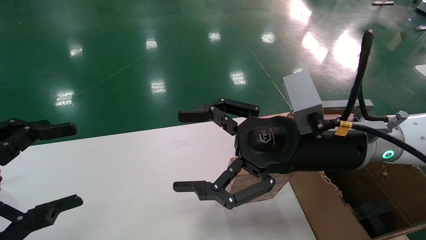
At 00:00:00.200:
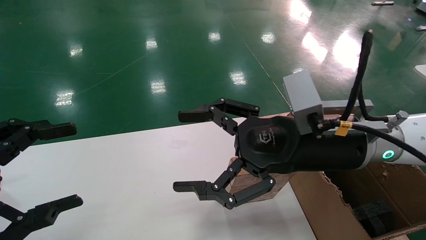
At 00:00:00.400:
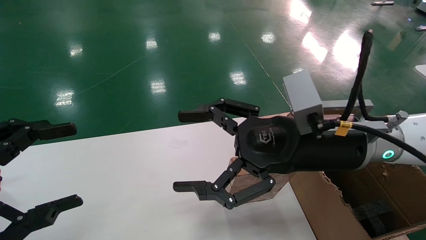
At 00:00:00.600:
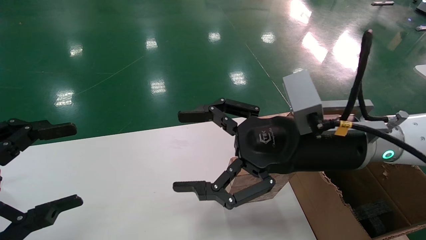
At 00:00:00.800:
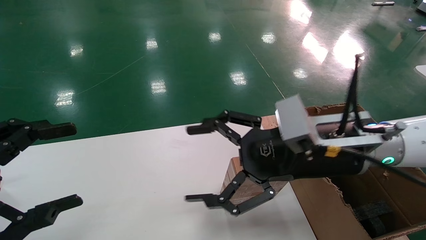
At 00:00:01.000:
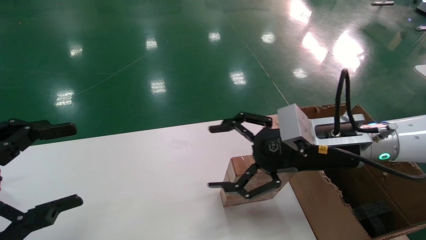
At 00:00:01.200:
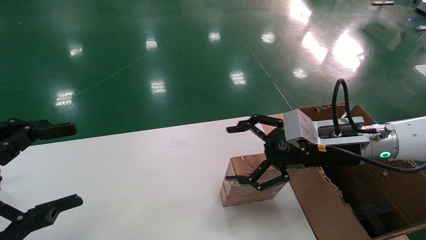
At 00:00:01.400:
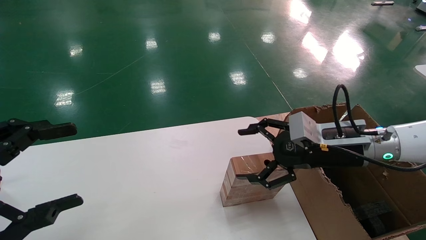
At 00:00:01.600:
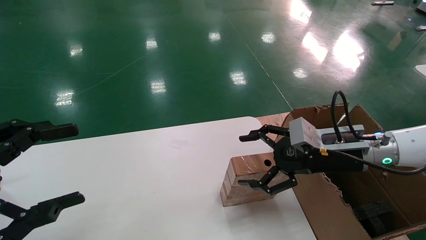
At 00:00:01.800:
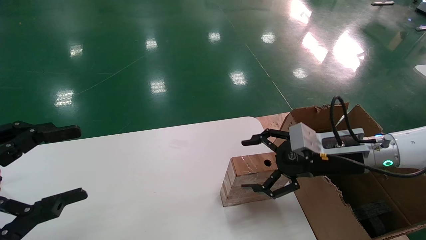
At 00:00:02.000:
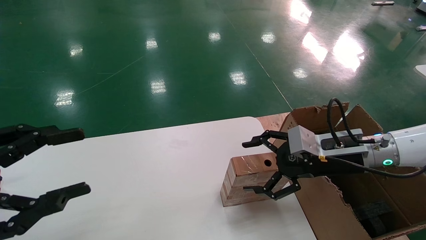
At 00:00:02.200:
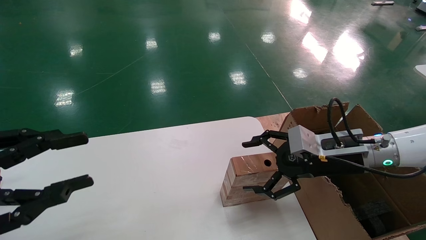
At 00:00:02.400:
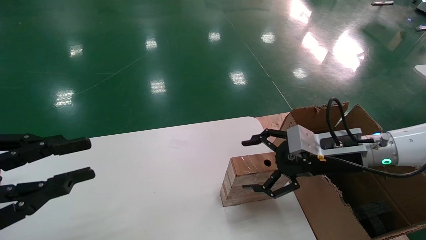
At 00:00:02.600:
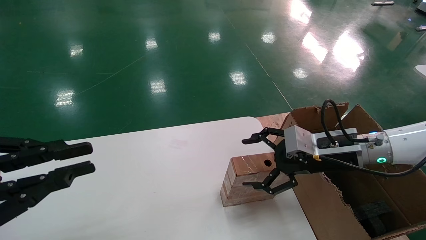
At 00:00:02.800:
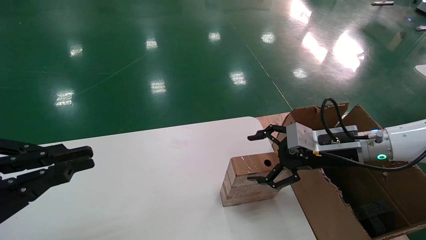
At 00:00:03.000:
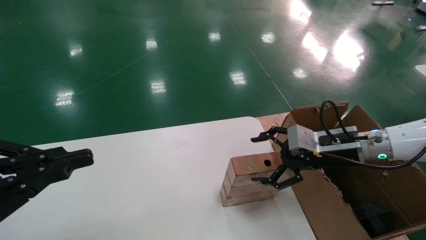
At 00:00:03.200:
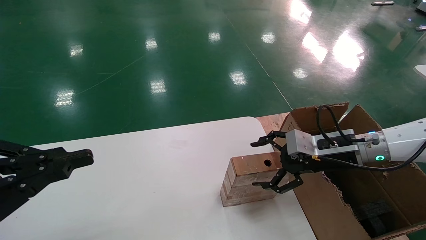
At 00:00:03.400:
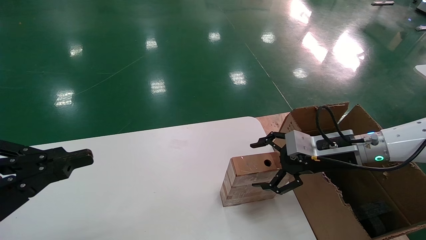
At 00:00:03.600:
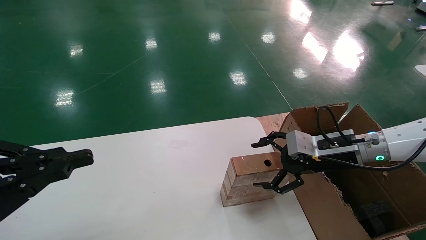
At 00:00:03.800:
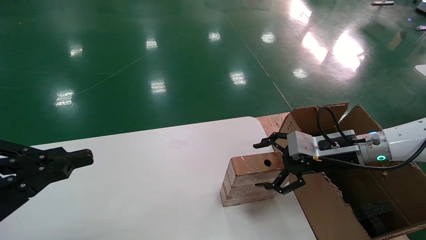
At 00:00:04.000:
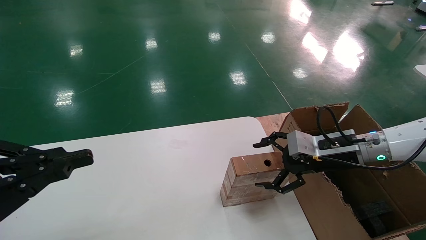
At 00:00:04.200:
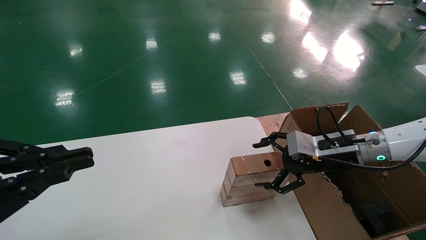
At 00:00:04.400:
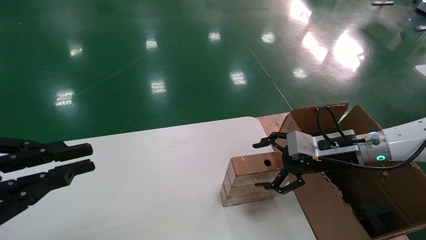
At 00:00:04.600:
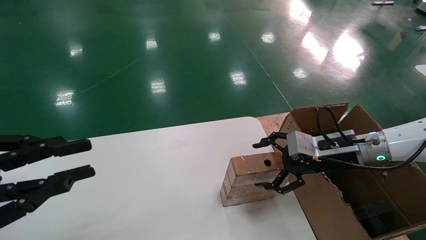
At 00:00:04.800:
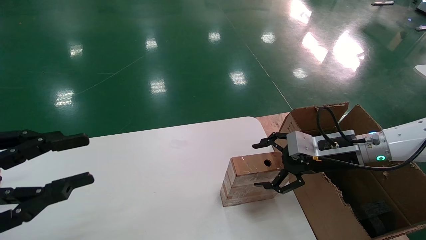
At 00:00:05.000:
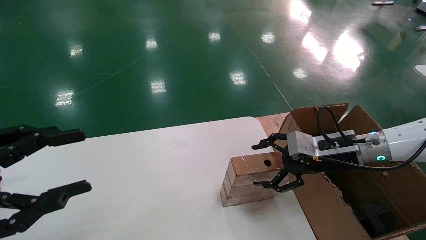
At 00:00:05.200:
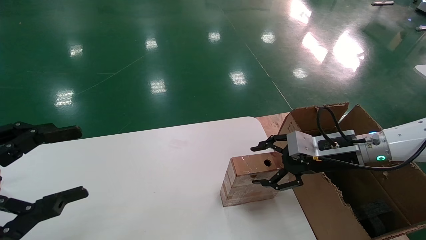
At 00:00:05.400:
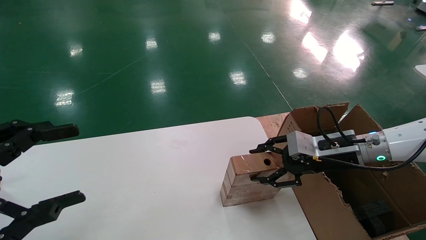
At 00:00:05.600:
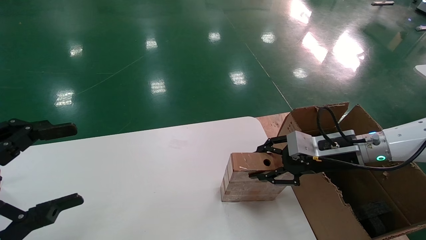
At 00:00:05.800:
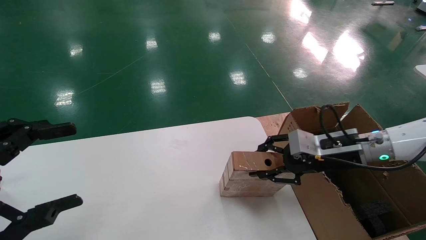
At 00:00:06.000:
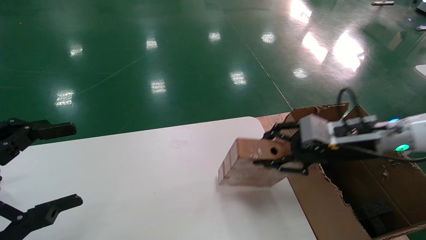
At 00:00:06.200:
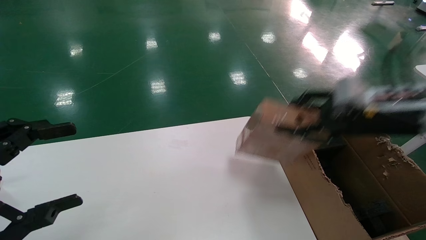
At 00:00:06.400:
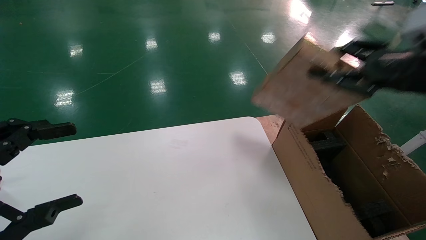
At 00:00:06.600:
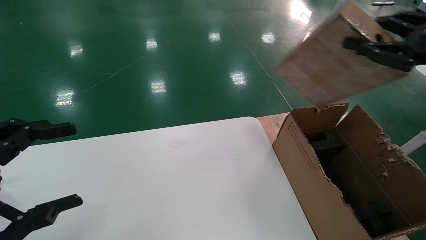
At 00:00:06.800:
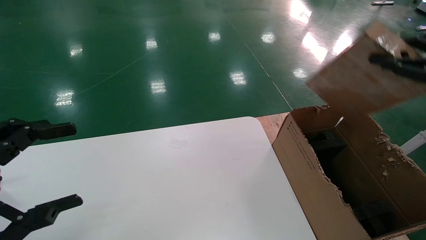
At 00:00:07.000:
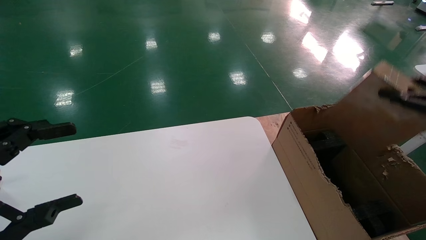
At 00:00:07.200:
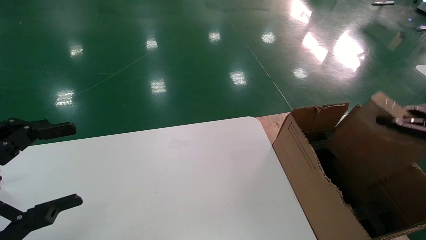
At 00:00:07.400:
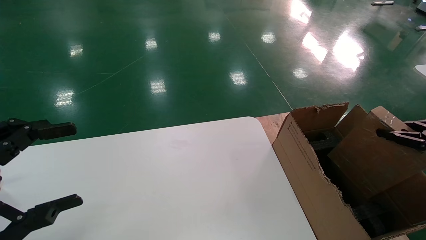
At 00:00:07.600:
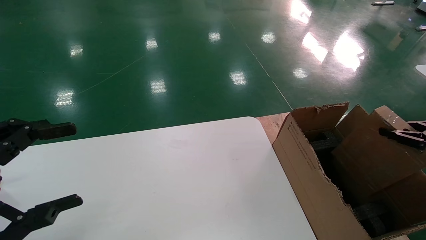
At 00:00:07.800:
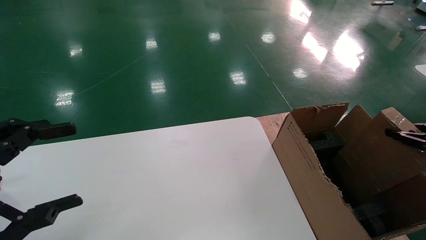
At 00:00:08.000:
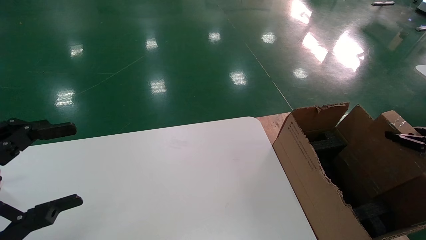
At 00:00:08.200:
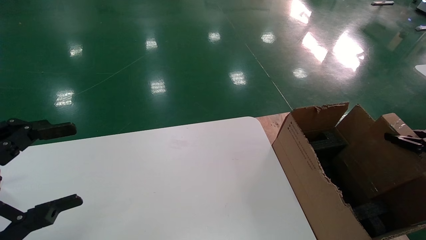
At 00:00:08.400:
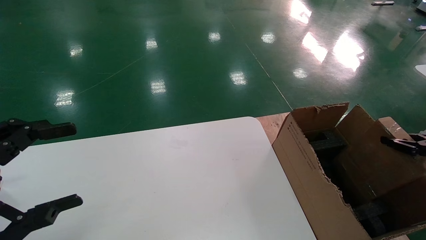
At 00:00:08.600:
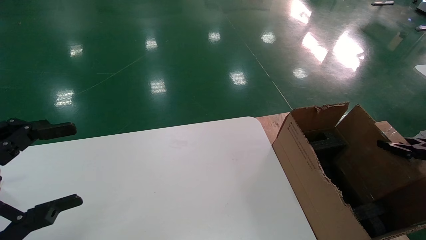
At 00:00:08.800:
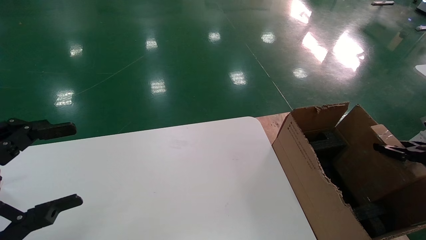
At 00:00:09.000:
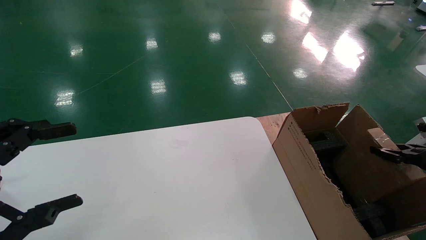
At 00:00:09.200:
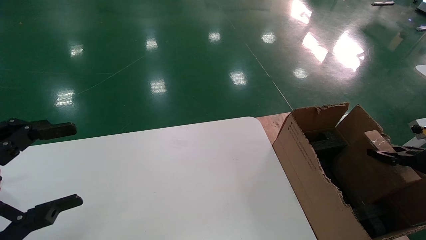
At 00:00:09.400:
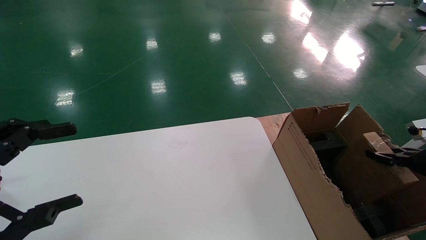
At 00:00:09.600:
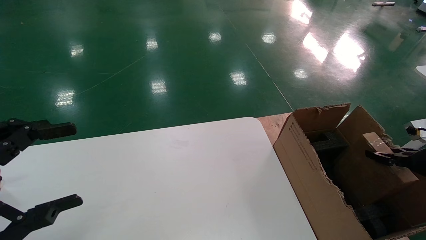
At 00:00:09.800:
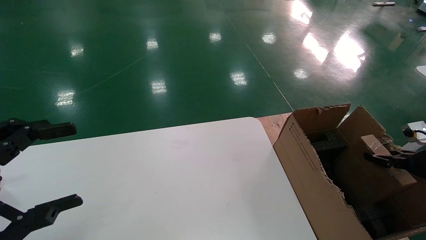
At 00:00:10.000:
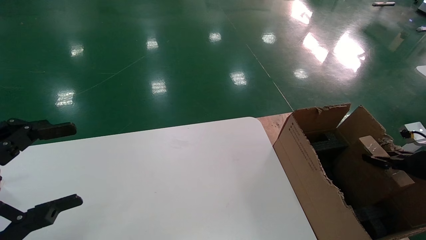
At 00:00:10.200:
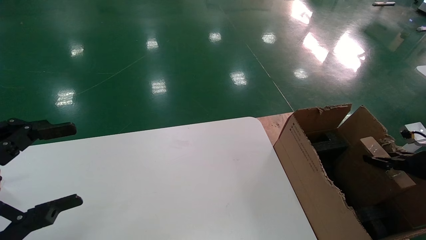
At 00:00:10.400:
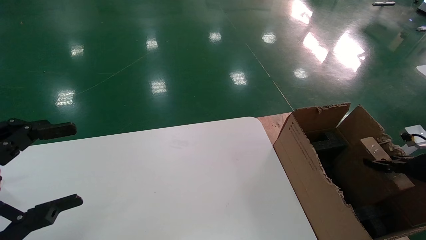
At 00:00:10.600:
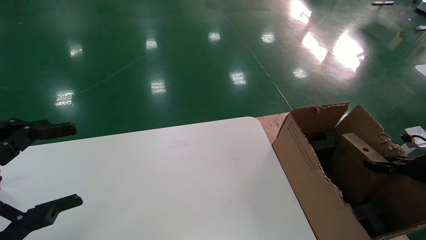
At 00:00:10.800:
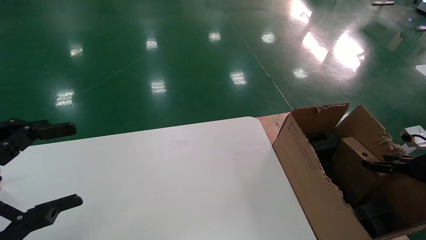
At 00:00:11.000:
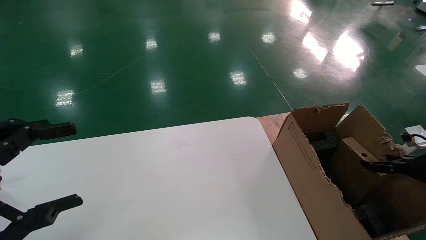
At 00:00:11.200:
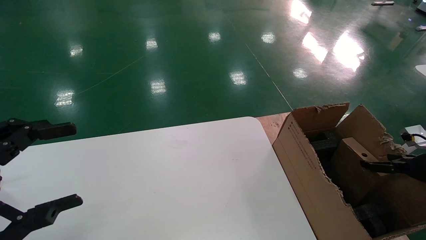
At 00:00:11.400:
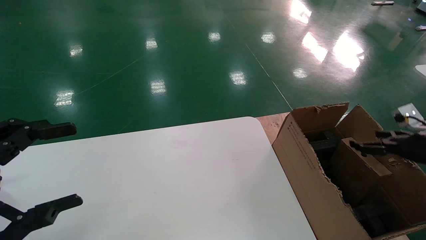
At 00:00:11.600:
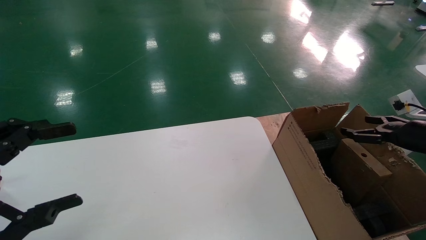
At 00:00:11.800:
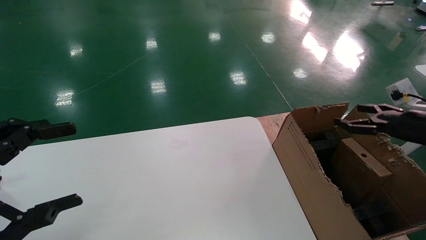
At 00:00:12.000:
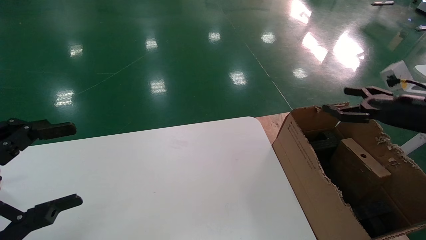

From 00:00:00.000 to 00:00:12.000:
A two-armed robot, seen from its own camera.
Task of the whole recording: put the box on the table into the big box.
Step, from 00:00:01.000 to 00:00:05.600: Pick up the mouse and the power cord paper box.
Step, from 00:00:05.800 to 00:00:10.800: Place the mouse and the power cord paper box into the container.
From 00:00:00.000 to 00:00:01.600: The right gripper is displaced to the right, downward and forward by approximately 15 cm.
From 00:00:01.600 to 00:00:03.000: The left gripper closes its fingers.
From 00:00:03.000 to 00:00:04.400: The two grippers keep their place.
From 00:00:04.400 to 00:00:06.000: The right gripper heads upward, covering some 5 cm, and closes. The left gripper opens.
From 00:00:06.000 to 00:00:07.600: The right gripper moves to the right and backward, about 25 cm.
From 00:00:07.600 to 00:00:09.000: The right gripper goes some 5 cm downward.
From 00:00:09.000 to 00:00:10.400: The grippers move only a little.
From 00:00:10.400 to 00:00:12.000: The right gripper is displaced upward and to the left by approximately 15 cm, and opens its fingers.

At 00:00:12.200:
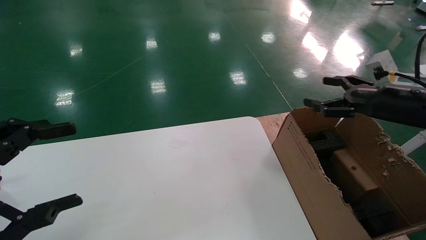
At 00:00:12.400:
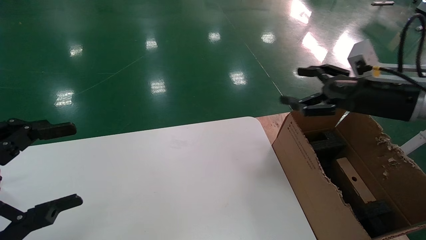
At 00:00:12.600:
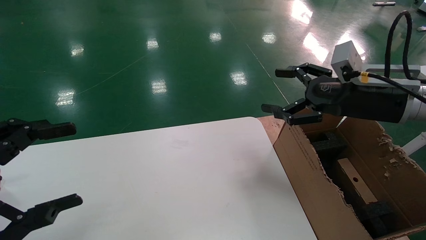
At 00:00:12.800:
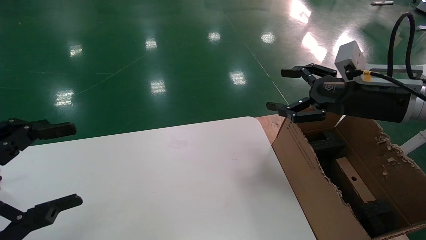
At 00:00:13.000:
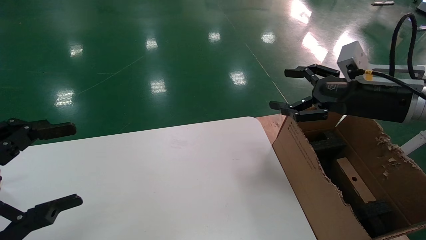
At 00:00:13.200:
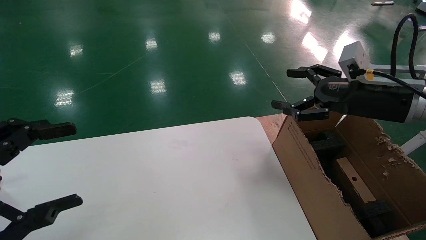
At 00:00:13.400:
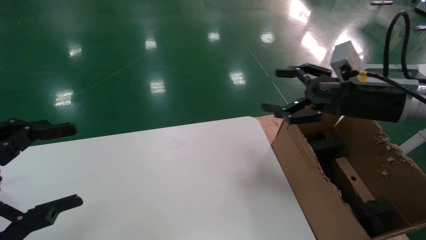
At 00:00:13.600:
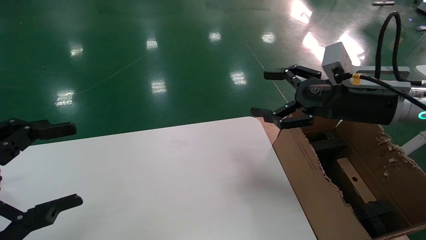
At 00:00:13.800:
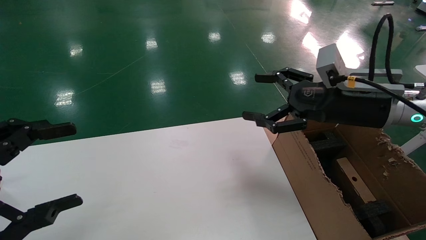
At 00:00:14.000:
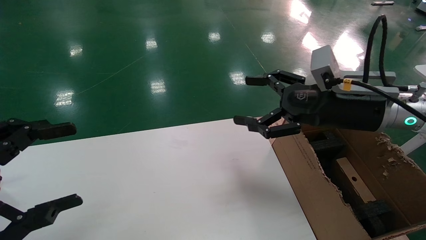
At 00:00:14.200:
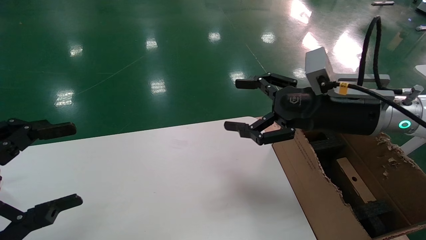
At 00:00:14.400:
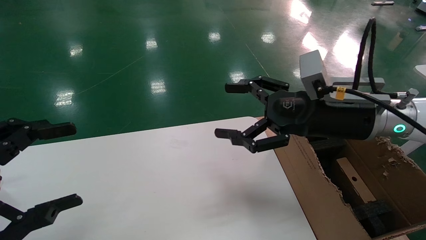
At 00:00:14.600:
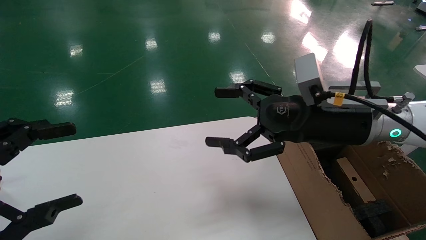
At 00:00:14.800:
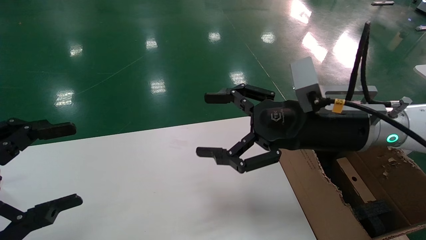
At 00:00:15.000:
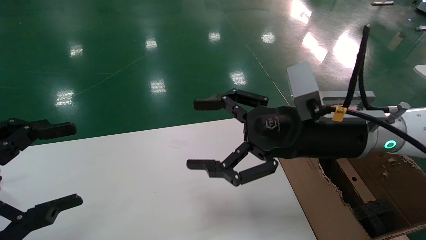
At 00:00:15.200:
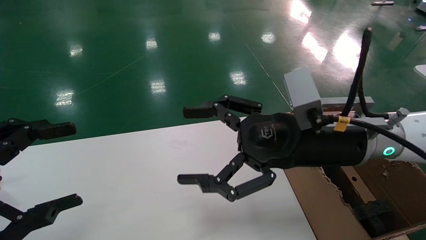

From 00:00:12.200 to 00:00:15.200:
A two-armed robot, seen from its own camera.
Task of the whole recording: put the box on the table into the big box.
From 00:00:12.200 to 00:00:13.800: The right gripper heads to the left, covering approximately 15 cm.
From 00:00:13.800 to 00:00:15.200: The right gripper is displaced to the left by some 10 cm.
